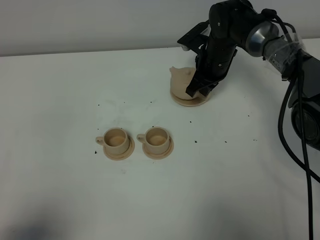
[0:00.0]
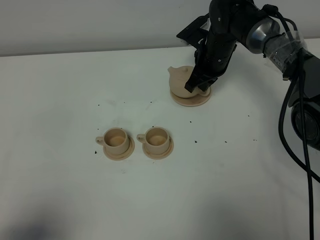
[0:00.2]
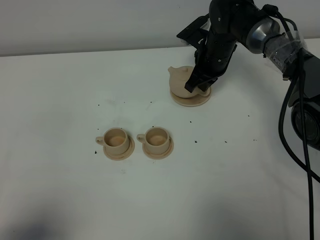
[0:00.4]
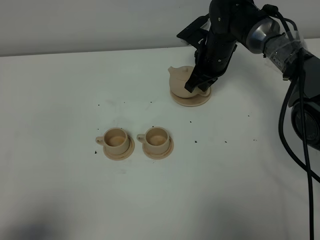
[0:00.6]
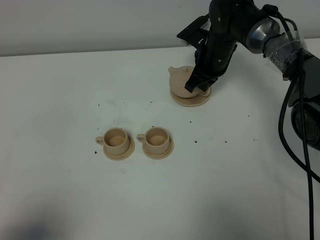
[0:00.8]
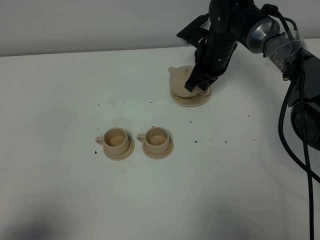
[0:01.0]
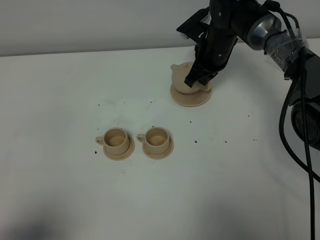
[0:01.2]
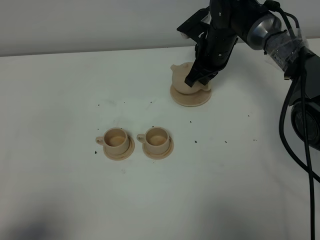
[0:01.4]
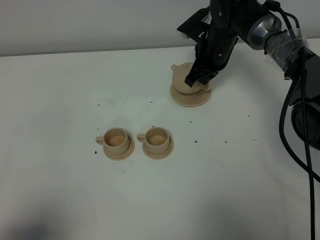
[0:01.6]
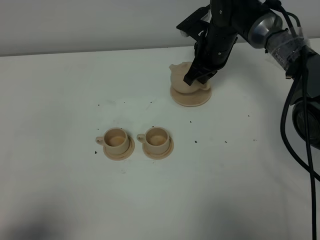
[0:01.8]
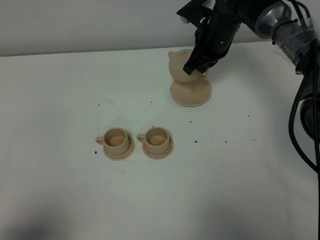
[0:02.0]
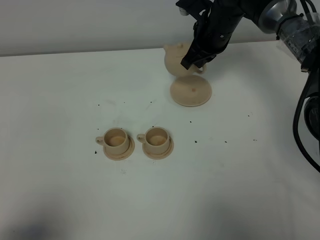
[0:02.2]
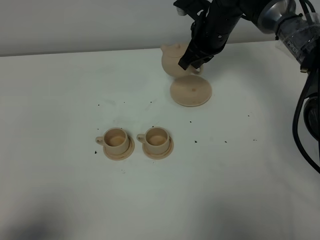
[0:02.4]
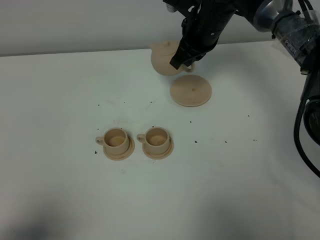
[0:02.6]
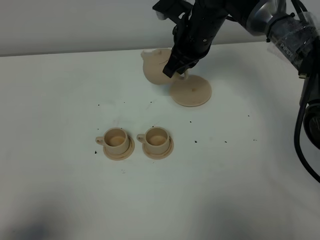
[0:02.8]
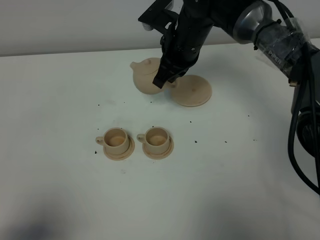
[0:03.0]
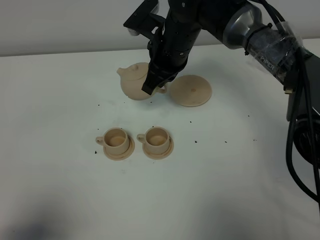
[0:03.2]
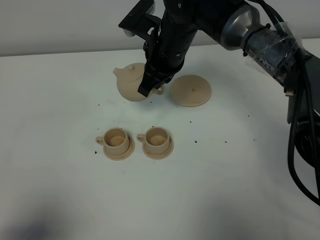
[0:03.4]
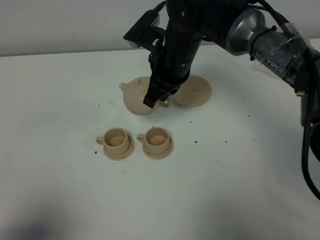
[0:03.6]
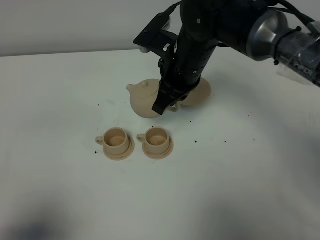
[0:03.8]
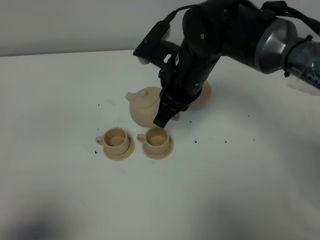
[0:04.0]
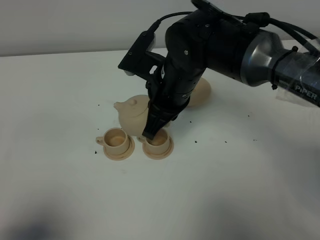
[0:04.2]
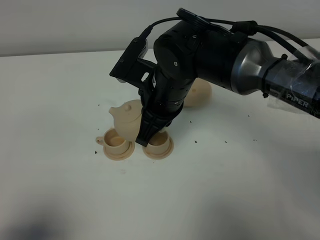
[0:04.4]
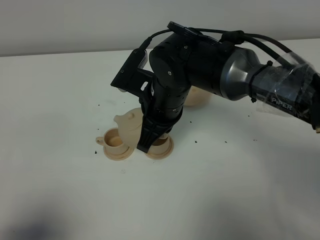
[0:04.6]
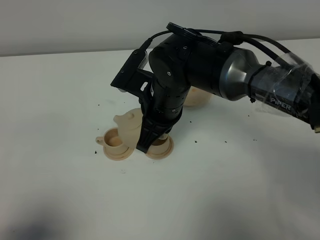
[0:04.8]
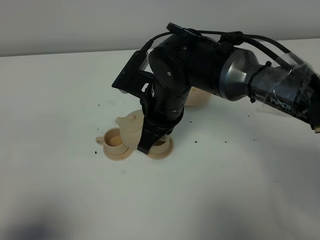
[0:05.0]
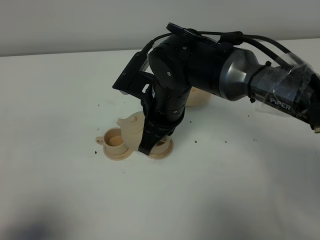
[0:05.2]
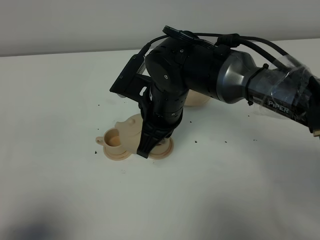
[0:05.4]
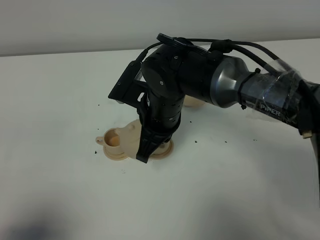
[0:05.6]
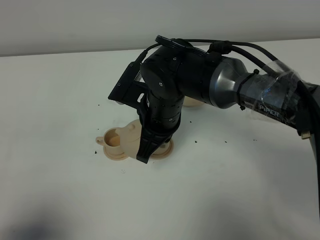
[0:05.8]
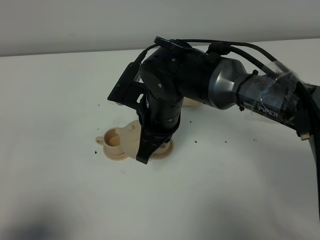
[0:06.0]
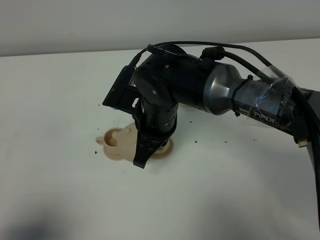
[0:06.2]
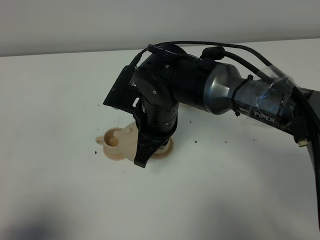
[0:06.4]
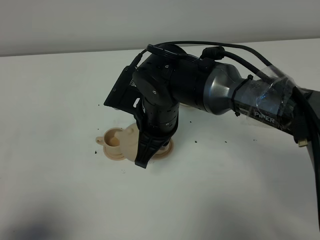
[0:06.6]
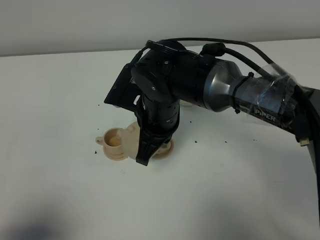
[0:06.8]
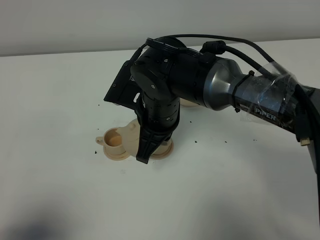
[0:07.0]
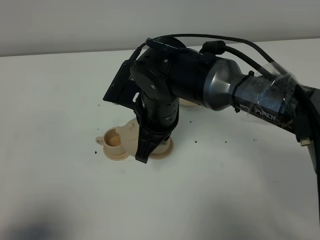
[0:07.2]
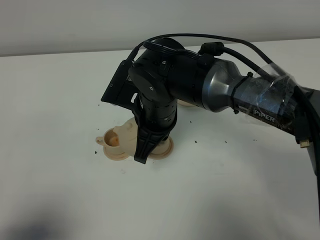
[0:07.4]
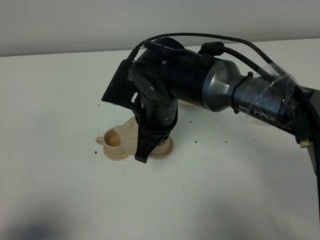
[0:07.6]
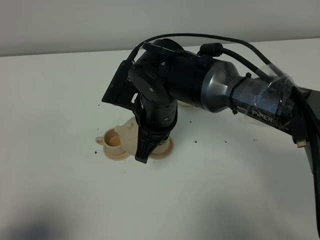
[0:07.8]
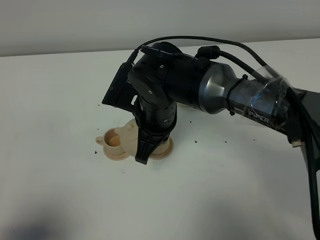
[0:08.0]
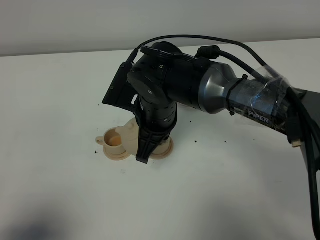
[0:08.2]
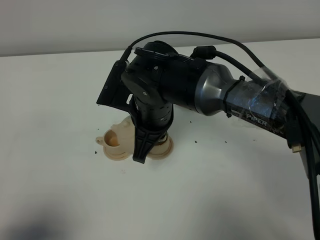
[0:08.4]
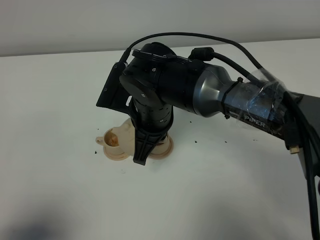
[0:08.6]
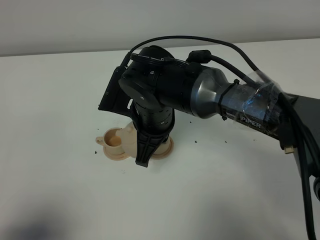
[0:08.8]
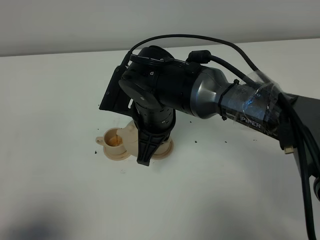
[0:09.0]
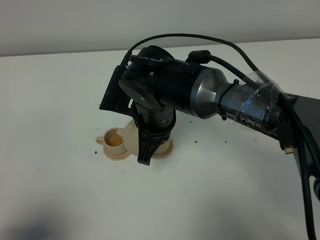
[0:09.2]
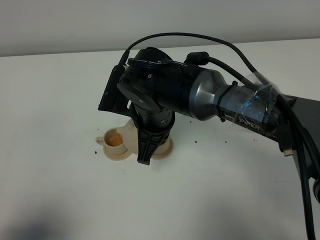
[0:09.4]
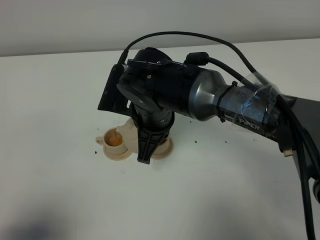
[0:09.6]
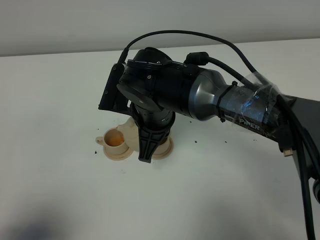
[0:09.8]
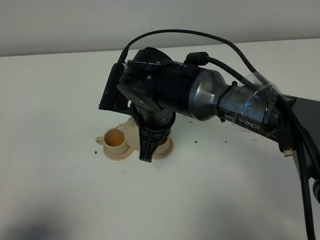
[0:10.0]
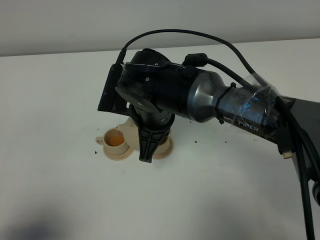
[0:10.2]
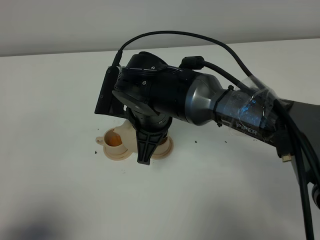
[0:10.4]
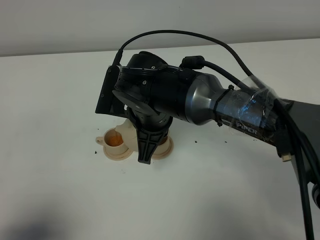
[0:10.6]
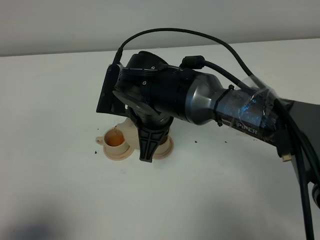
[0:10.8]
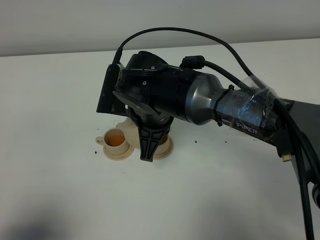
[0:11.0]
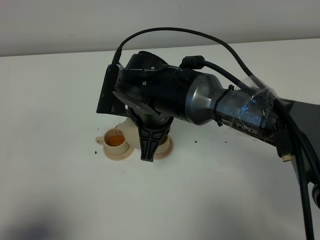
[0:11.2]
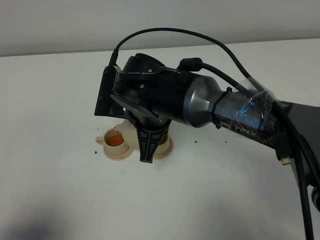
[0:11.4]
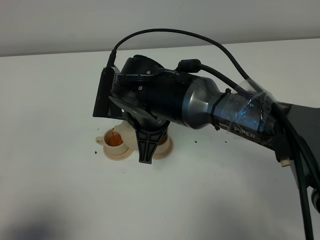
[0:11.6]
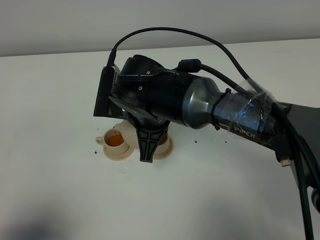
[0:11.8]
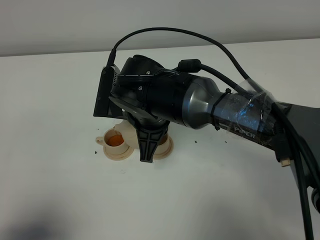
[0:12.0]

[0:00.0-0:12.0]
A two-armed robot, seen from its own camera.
Task of the whole recording: grasp the brown teapot and pour the tea into the two brown teacups one by one, put the brown teapot back in its original place.
0:00.0 to 0:01.6: There are only small adjustments of the grippers.
0:01.6 to 0:03.0: The right gripper is displaced backward, upward and to the left by about 10 cm.
0:03.0 to 0:04.4: The right gripper travels backward by about 10 cm.
0:04.4 to 0:06.0: The grippers make only small movements.
0:06.0 to 0:07.6: Both grippers stay about where they are.
0:07.6 to 0:12.0: The grippers stay close to where they were, moving slightly.

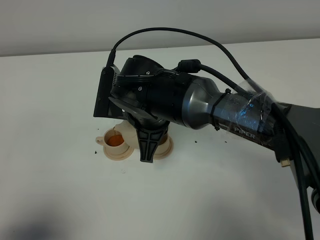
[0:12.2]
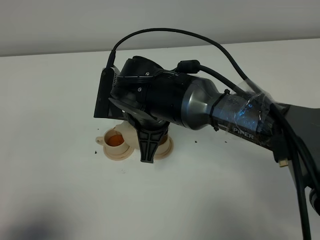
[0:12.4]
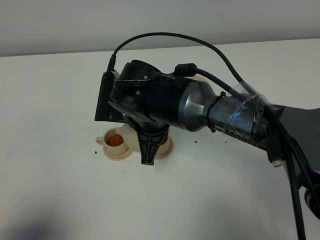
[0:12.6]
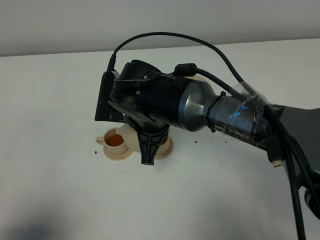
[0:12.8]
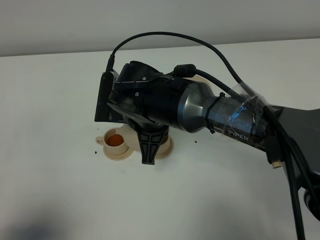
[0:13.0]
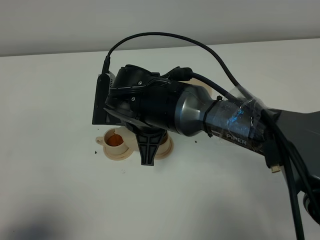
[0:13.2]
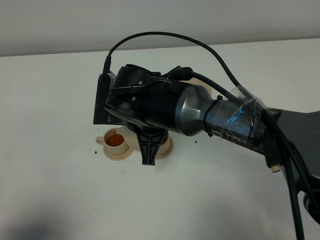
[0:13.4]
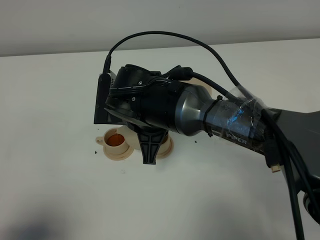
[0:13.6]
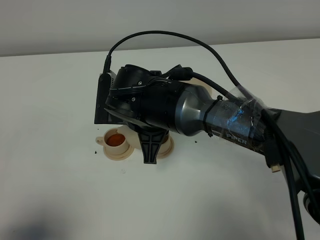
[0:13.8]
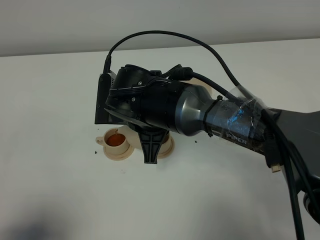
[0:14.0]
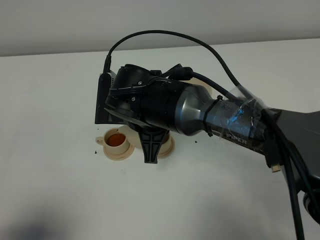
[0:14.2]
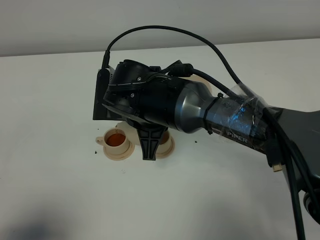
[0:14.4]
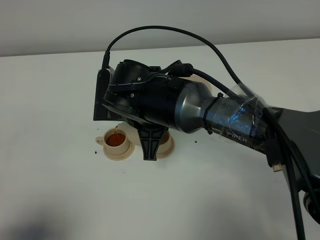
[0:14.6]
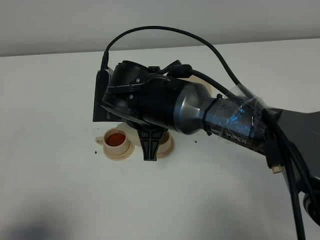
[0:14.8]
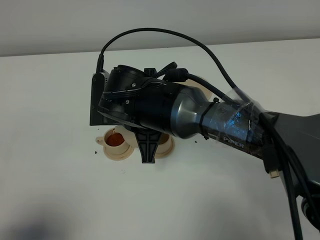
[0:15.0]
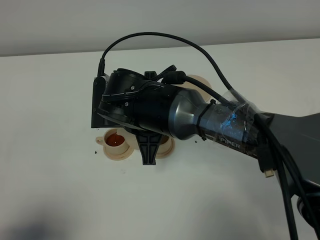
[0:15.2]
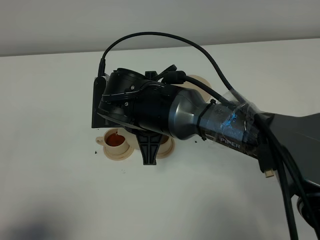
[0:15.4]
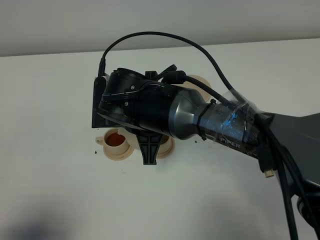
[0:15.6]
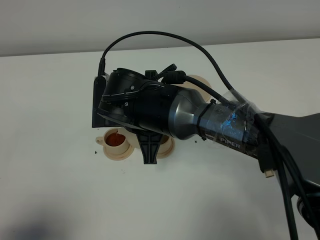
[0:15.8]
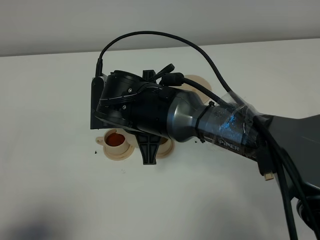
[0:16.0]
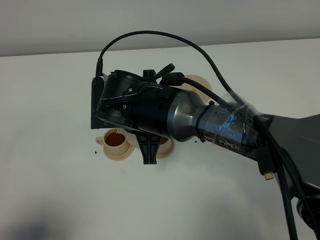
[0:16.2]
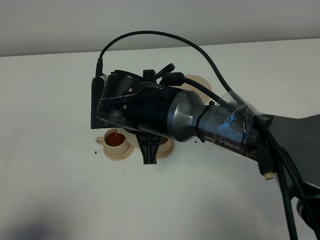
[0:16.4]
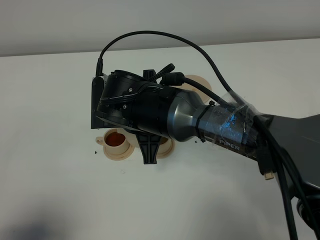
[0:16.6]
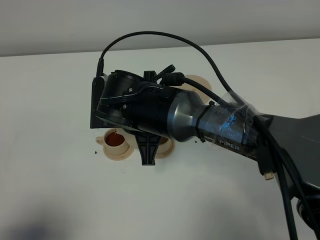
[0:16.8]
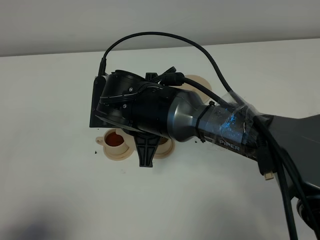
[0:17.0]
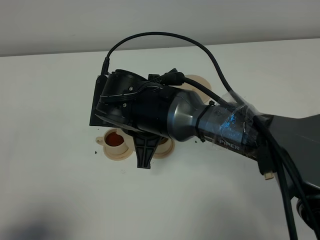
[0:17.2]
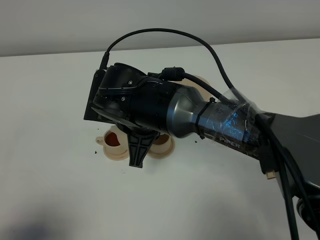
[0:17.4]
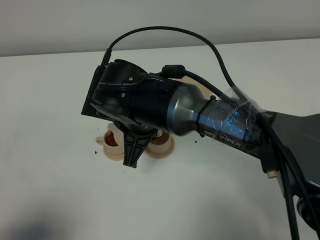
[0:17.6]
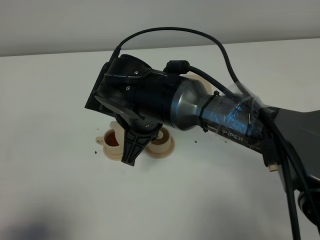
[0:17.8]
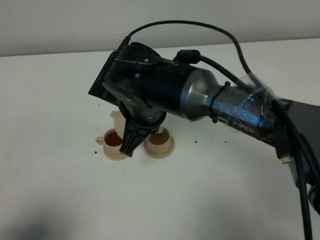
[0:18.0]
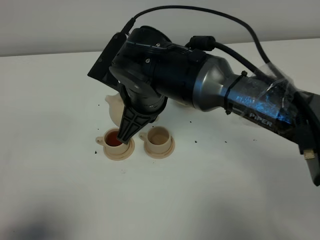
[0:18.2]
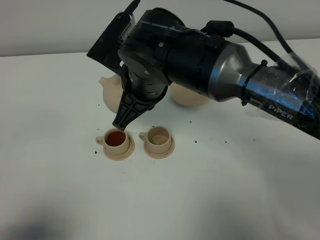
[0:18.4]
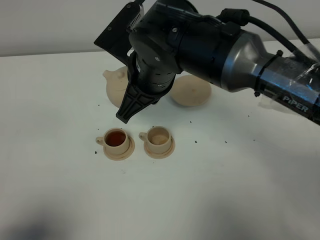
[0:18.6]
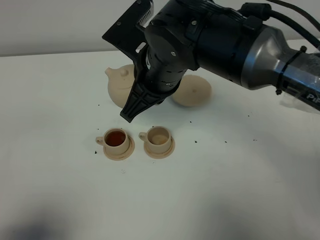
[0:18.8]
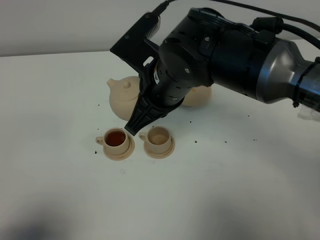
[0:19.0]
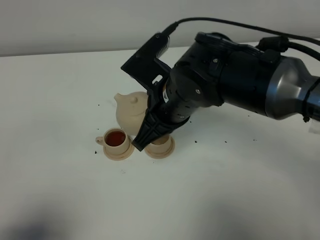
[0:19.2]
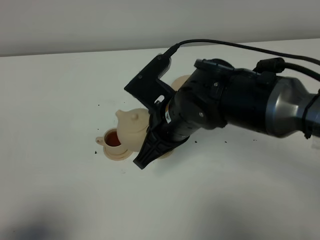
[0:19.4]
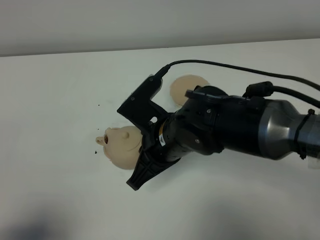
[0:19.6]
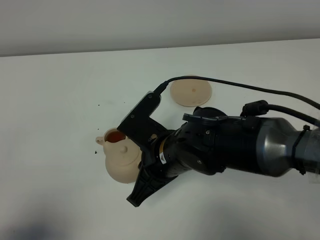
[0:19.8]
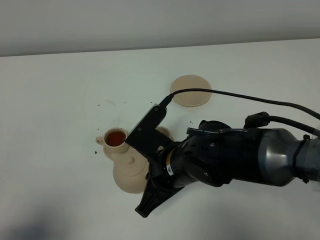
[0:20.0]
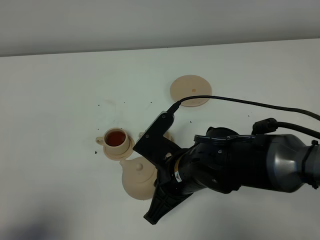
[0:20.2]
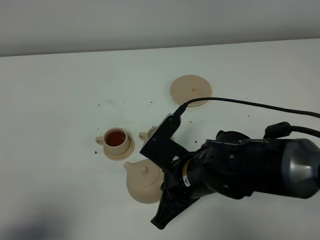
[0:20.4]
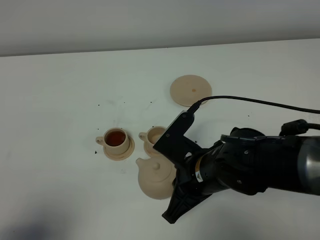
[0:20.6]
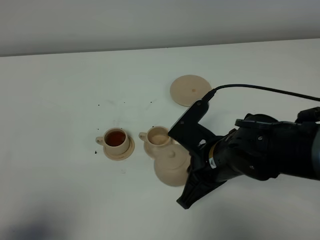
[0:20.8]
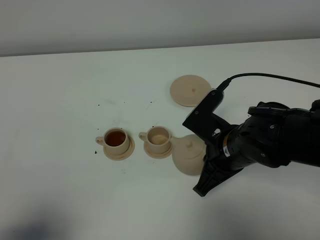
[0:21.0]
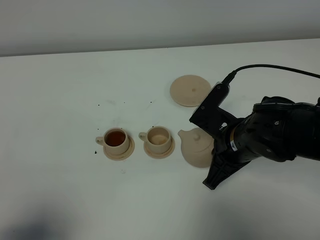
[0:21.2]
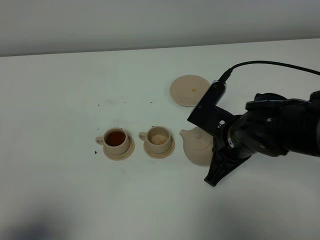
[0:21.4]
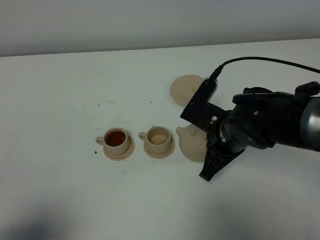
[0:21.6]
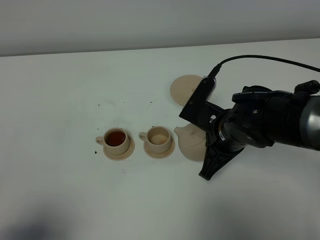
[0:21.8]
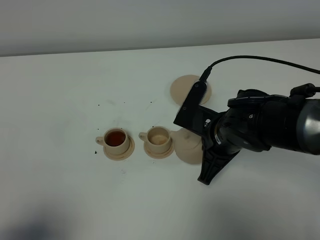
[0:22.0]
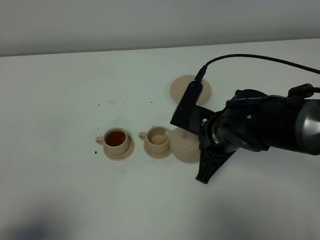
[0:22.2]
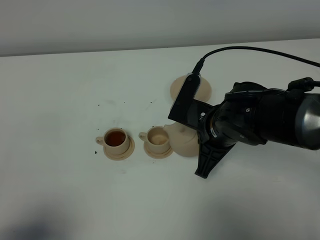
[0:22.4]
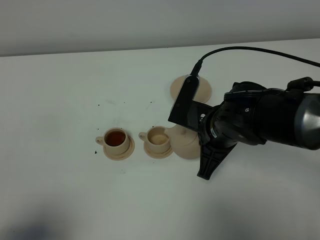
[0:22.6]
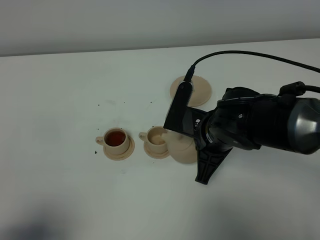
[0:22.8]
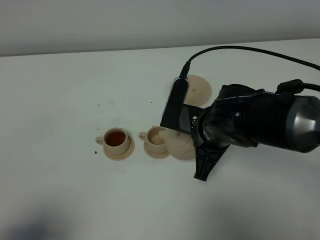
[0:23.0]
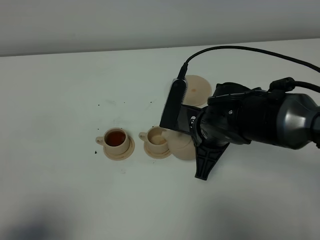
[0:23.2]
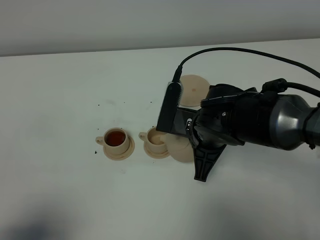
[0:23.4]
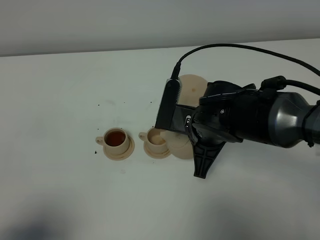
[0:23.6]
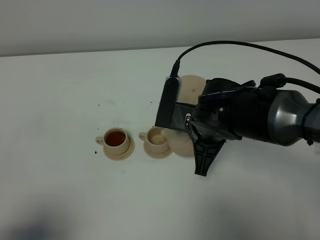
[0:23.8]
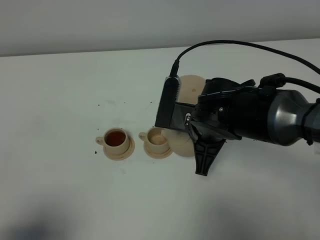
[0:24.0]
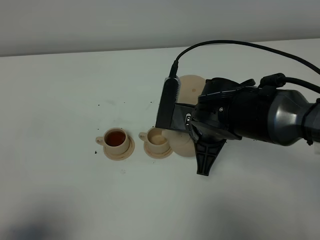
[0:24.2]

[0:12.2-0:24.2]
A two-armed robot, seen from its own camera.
Task of the whole recording: grasp the brown teapot and pour the tea into the two brown teacups one by one, put the brown teapot back in its original place.
0:12.2 to 0:13.8: The grippers make only small movements.
0:13.8 to 0:15.2: Both grippers stay put.
0:15.2 to 0:16.6: The two grippers keep their place.
0:16.6 to 0:18.2: The right gripper ends up approximately 5 cm from where it was.
0:18.2 to 0:19.8: The right gripper shifts approximately 10 cm backward and downward.
0:19.8 to 0:21.2: The right gripper goes roughly 10 cm to the right.
0:21.2 to 0:22.6: There are only small adjustments of the grippers.
0:22.6 to 0:24.2: The grippers stay close to where they were, moving slightly.
